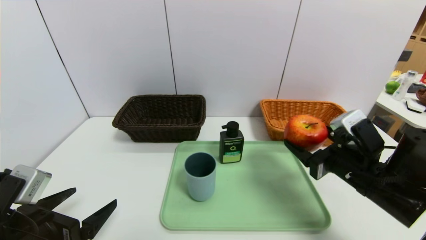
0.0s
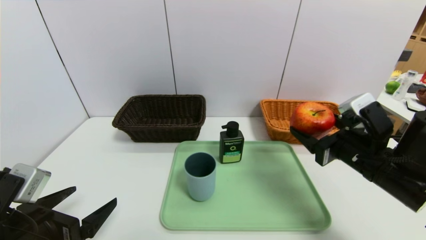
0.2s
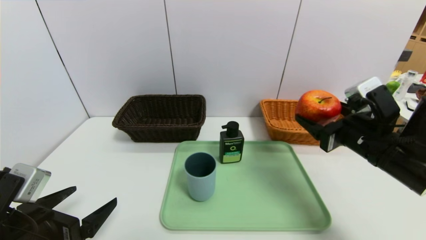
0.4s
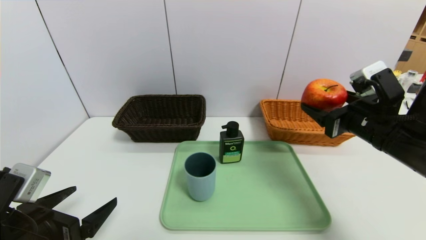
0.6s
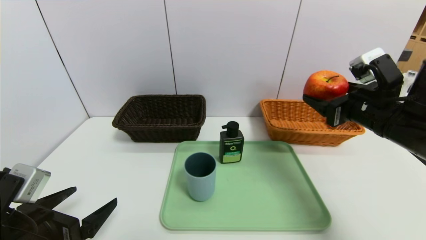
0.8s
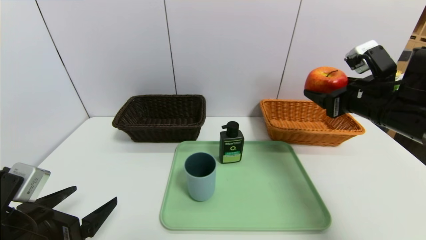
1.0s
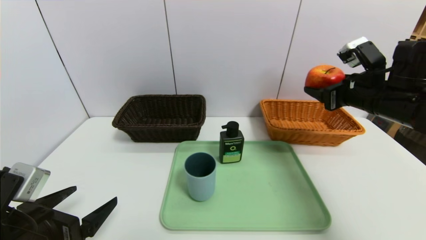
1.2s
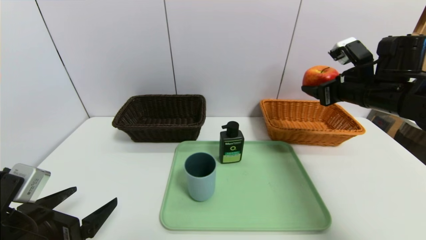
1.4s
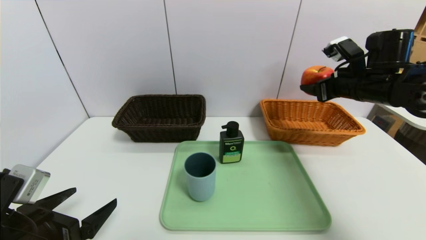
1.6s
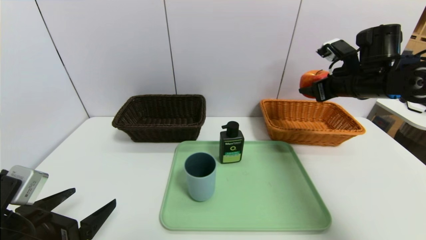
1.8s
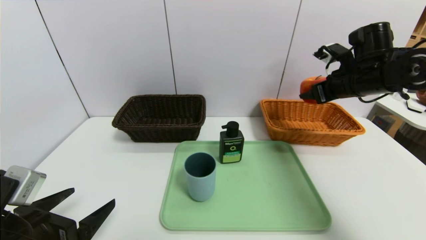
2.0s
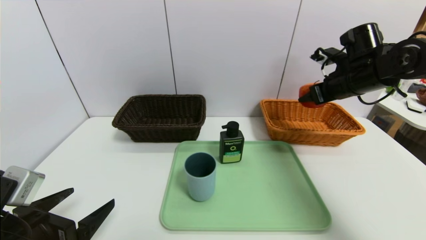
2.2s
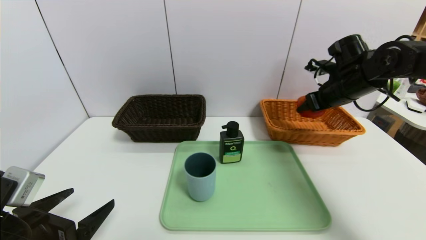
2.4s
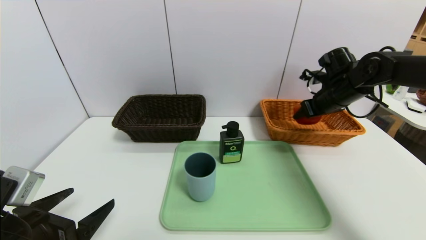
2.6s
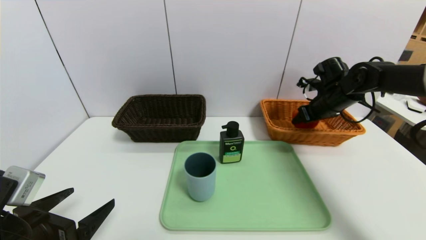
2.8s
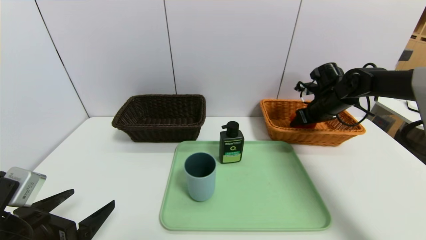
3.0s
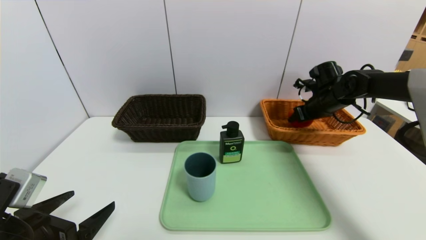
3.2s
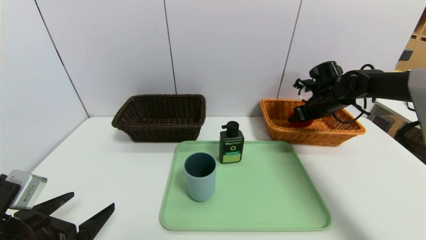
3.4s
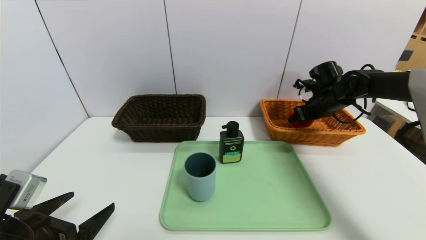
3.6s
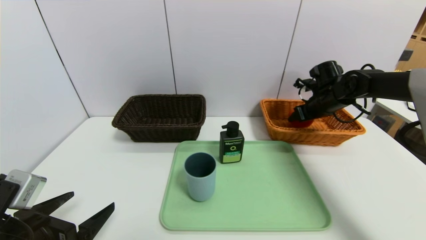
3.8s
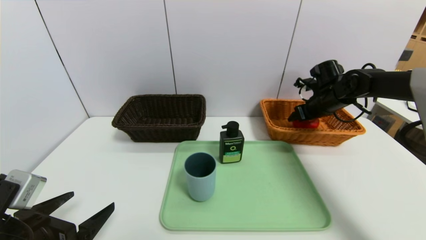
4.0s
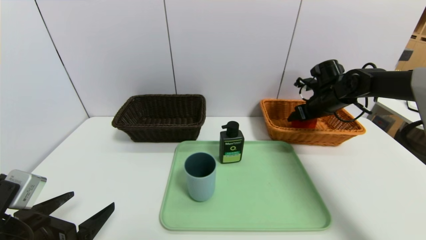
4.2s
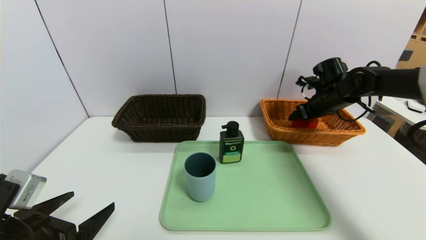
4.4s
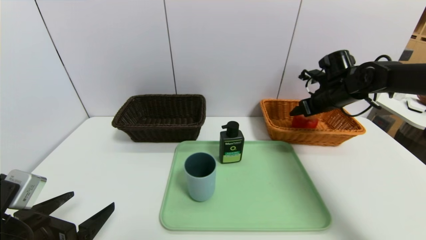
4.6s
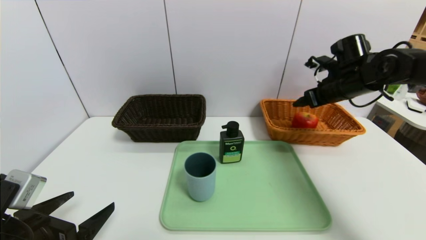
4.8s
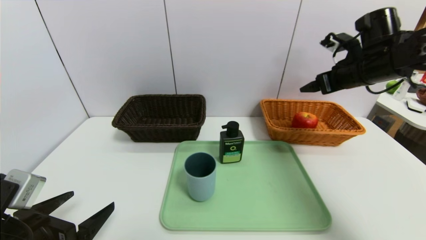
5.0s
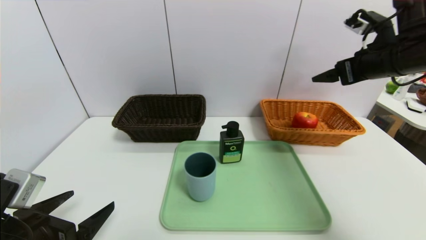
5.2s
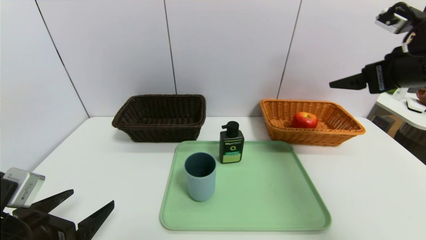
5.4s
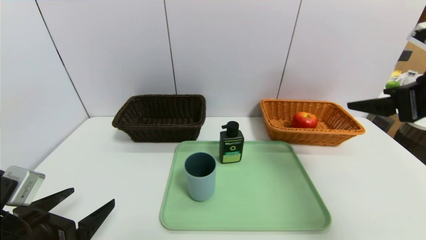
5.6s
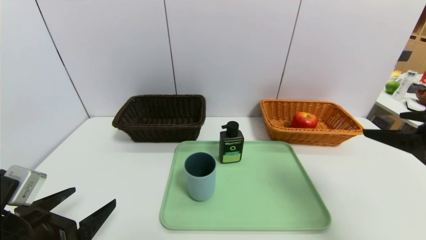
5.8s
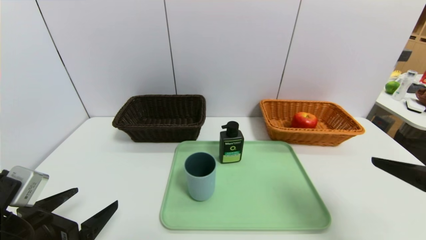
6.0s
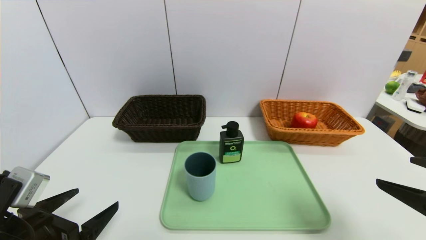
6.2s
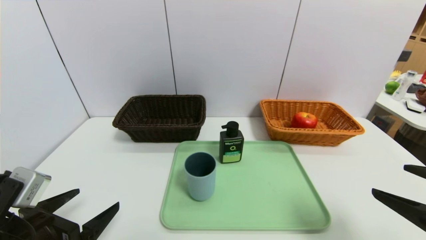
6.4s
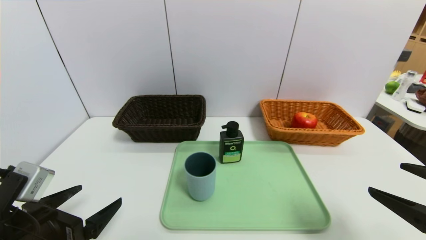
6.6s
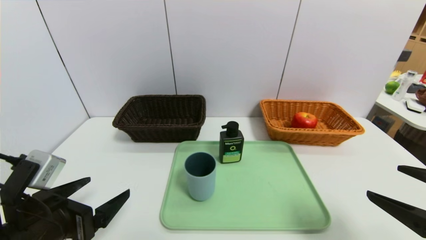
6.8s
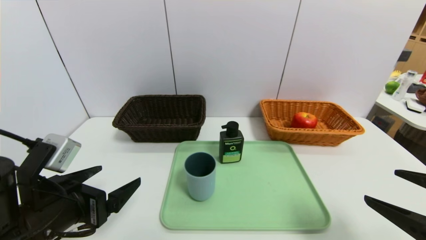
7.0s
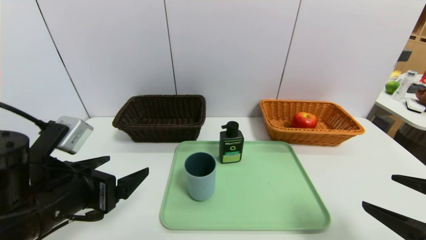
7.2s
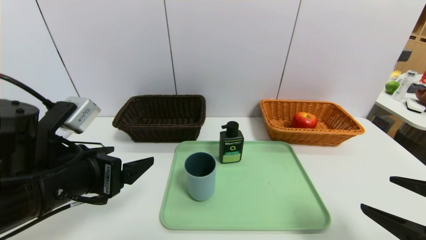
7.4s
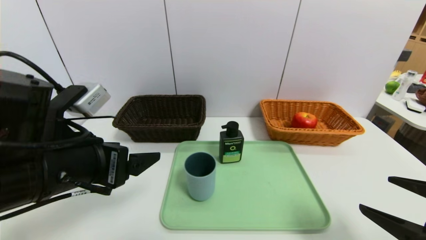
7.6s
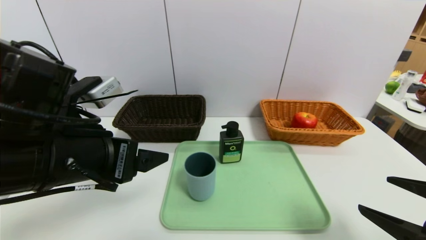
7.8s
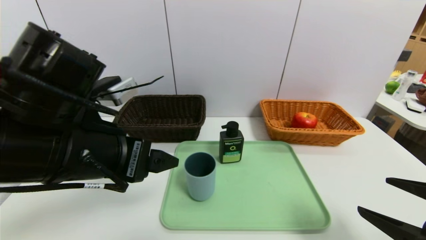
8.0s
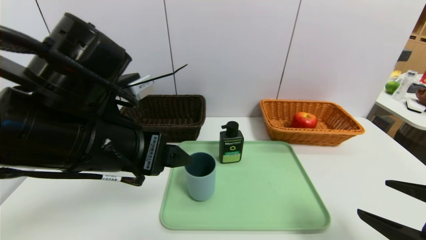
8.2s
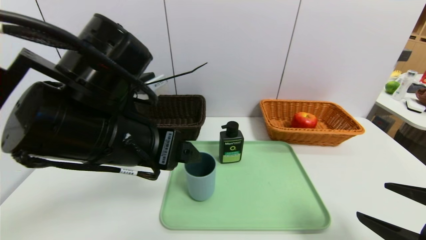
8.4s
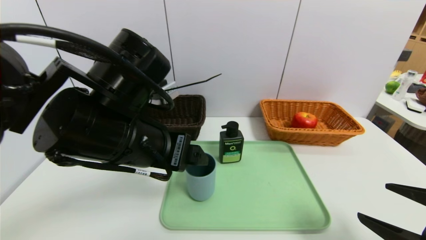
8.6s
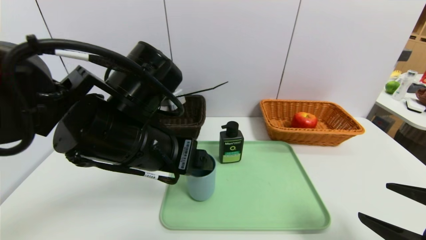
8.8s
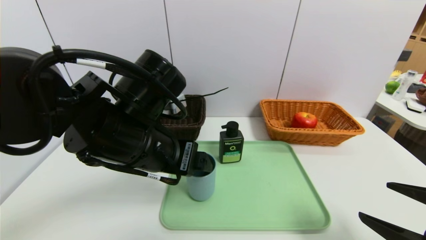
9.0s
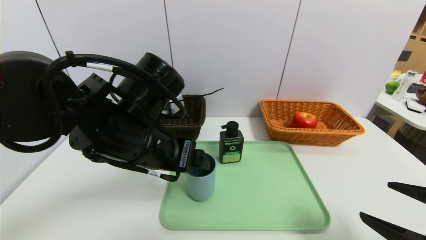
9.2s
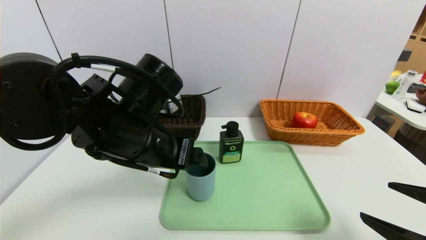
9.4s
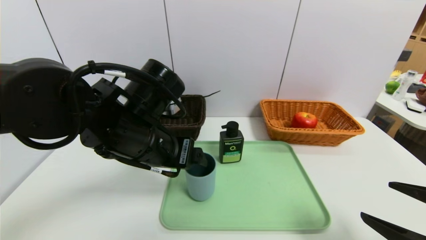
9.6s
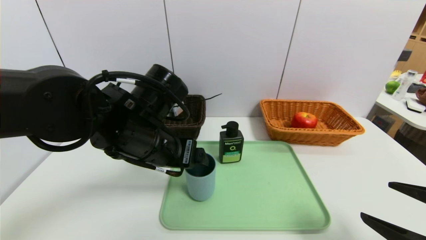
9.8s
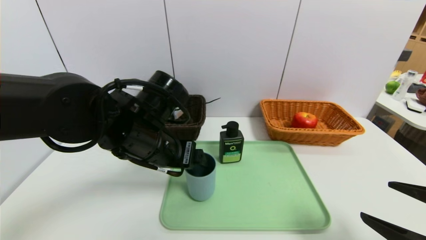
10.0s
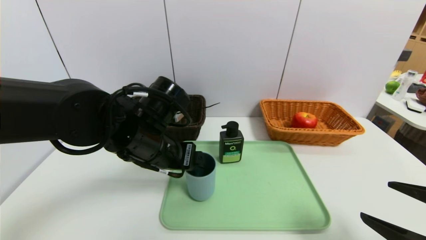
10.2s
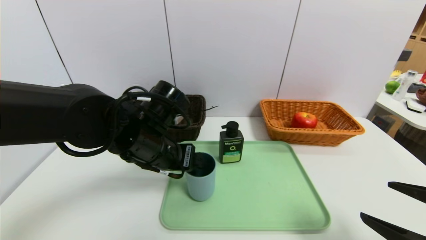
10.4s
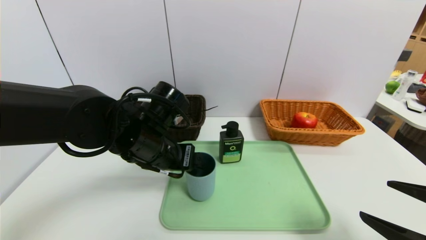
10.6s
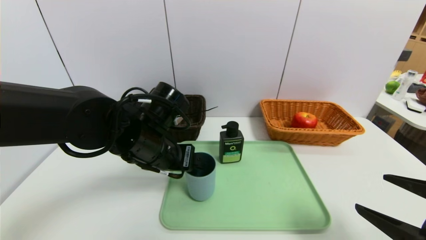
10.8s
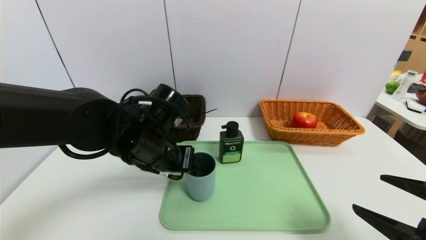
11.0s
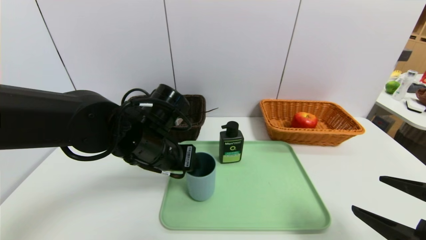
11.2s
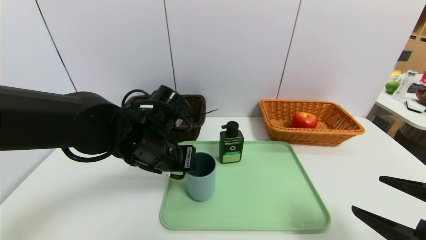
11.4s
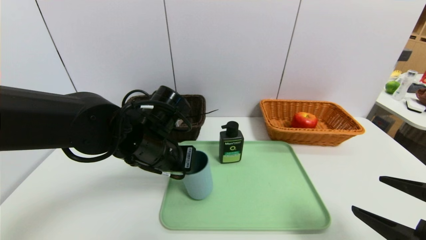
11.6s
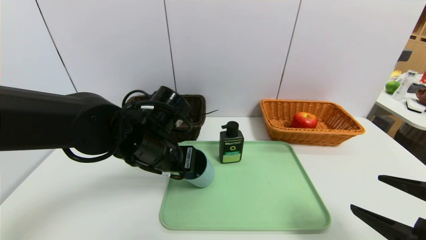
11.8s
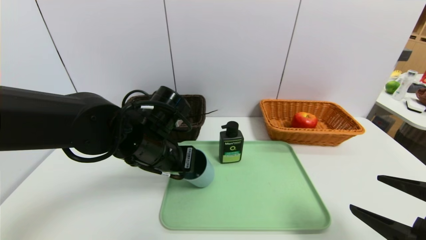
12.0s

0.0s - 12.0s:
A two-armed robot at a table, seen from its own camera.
Task of the whole recording: place the food in the right basket with the right gripper, and place the non food items in the left basket with the left gripper.
Step, 0.0s - 4.2s: Grasp the apple and put it in the right basket.
0.0s - 1.6s: The right gripper goes some 15 cm forward and upward.
1.6s - 3.0s: The right gripper goes approximately 10 cm forward and downward.
3.0s - 4.4s: The grippers move only a little.
4.4s - 6.0s: The right gripper travels backward by about 35 cm.
6.0s - 7.6s: The left gripper moves upward, to the right and forward, roughly 15 cm, while the right gripper travels downward by about 5 cm.
7.6s - 9.0s: The left gripper is displaced to the right by about 10 cm.
9.0s - 10.4s: The left gripper is displaced downward by about 5 cm.
10.4s - 12.0s: The left gripper closes.

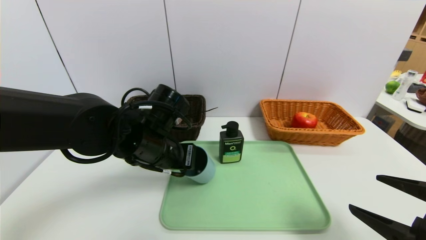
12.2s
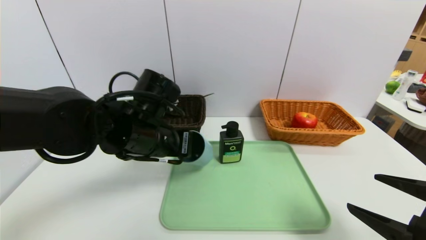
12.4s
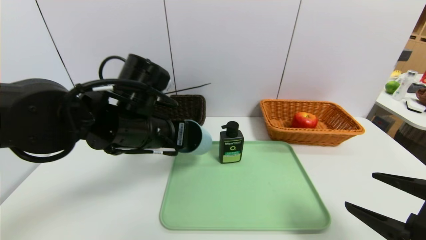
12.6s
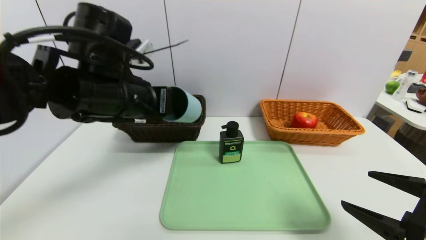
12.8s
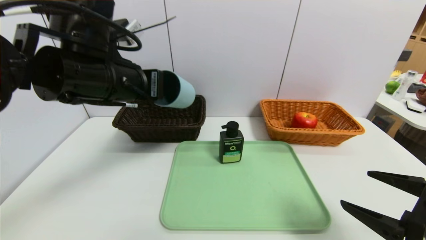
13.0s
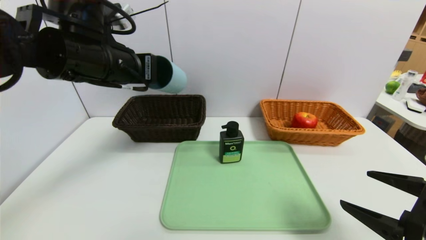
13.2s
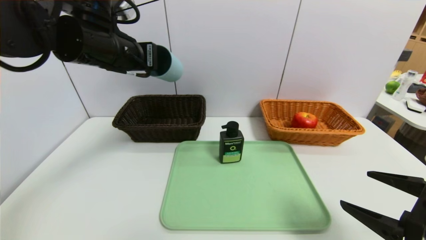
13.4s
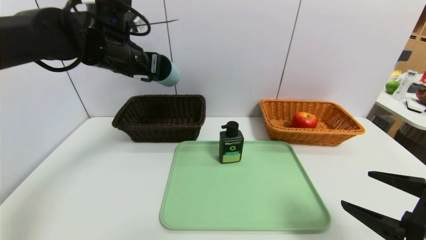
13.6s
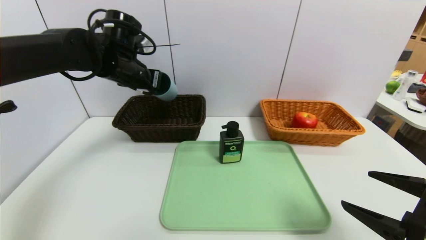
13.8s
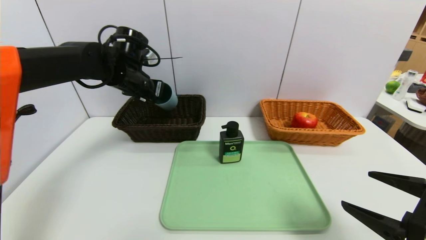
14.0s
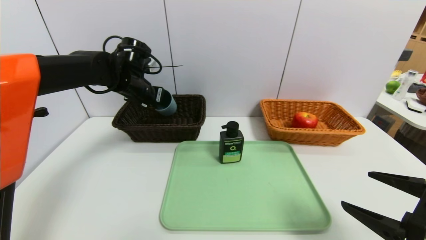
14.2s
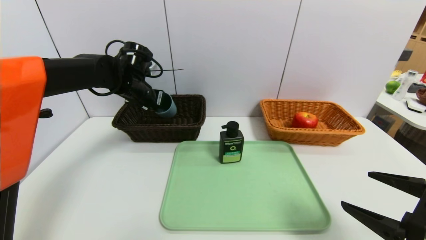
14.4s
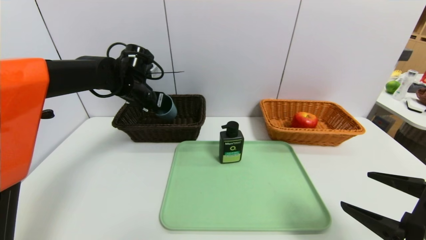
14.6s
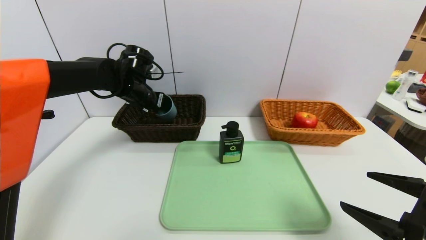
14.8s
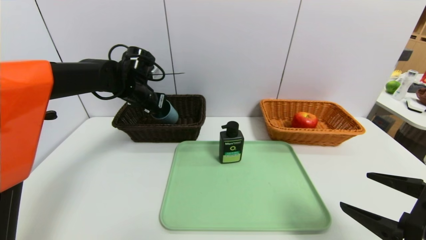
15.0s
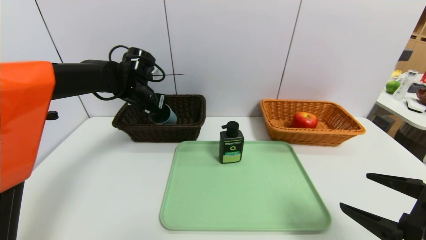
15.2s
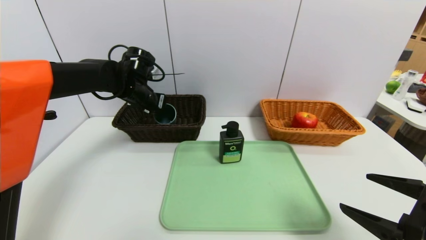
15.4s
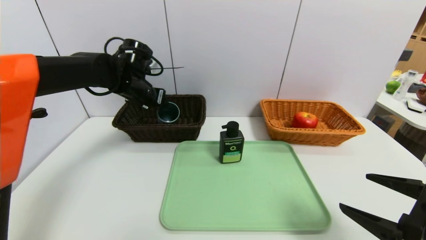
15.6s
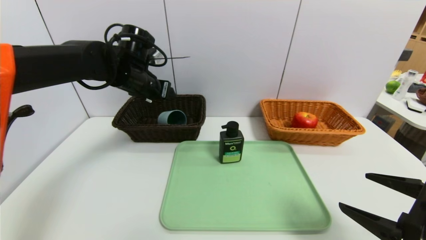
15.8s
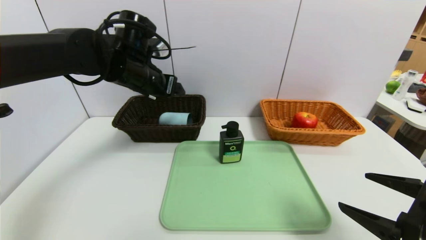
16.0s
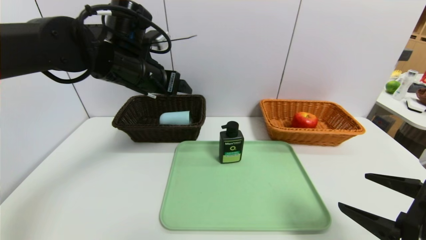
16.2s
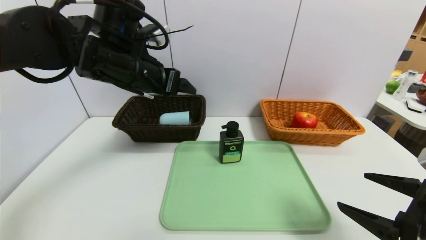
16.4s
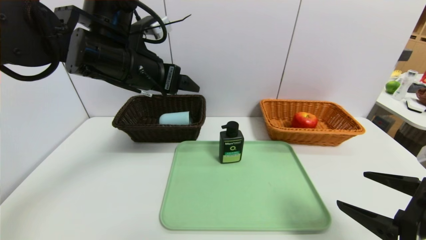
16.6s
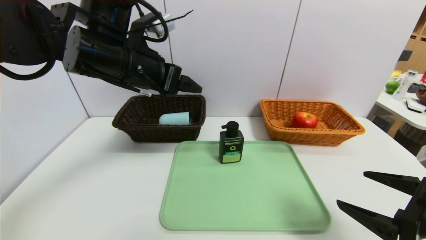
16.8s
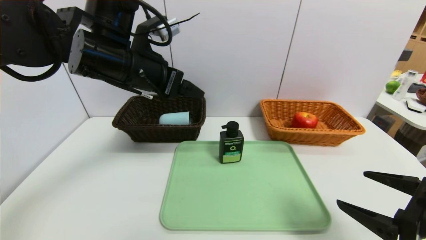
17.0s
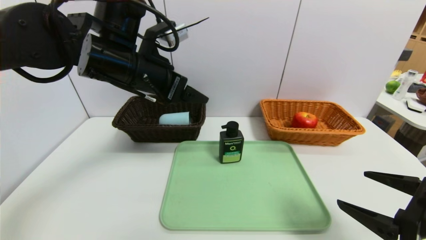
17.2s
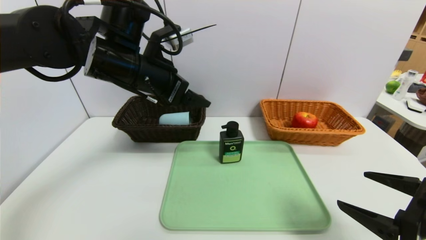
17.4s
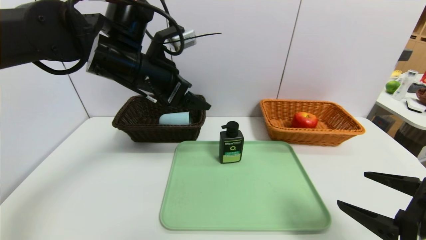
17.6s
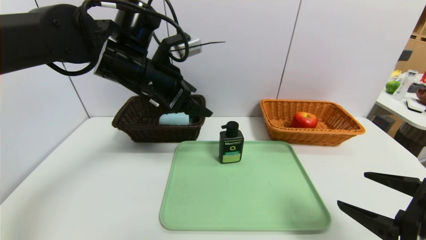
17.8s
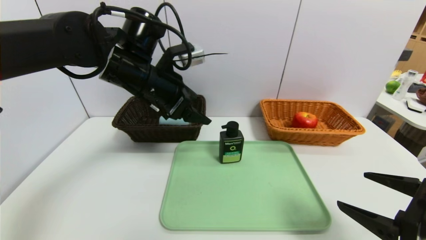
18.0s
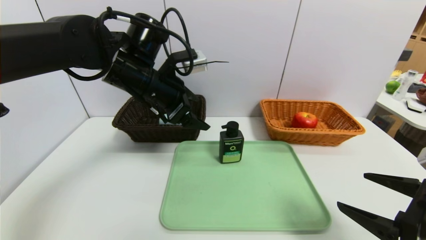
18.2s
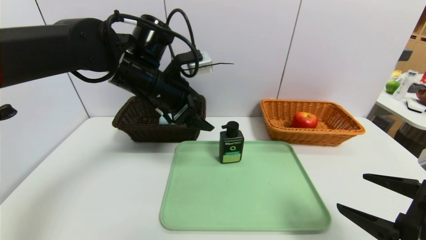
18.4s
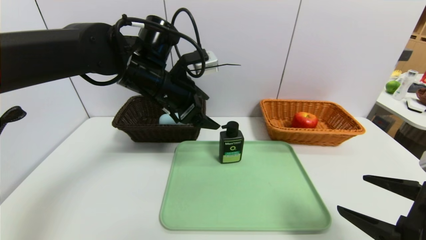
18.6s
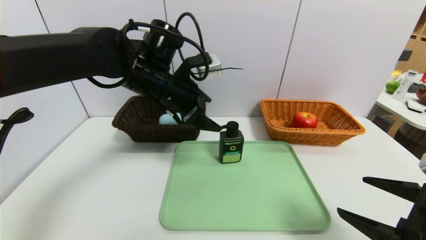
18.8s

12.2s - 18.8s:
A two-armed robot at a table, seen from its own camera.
Task of the whole recording: place the food in the right basket with the right gripper, and place the non food items in the left basket with the left gripper.
Step, 12.2s - 15.8s: Grasp the blue cup and put it in the left basket.
12.2s - 13.8s: The left gripper moves forward, upward and to the left, some 20 cm.
13.8s - 15.4s: The left gripper travels downward by roughly 5 cm, and opens up.
15.4s - 17.2s: The left gripper travels backward, upward and to the right by about 15 cm.
17.2s - 18.8s: The left gripper shifts by some 5 cm.
